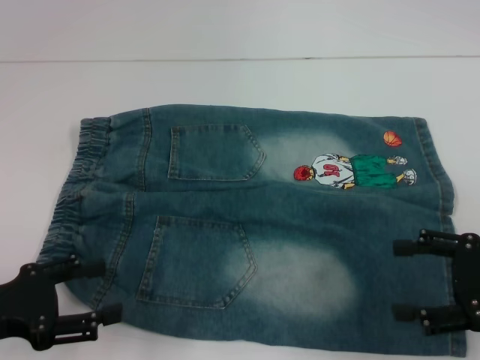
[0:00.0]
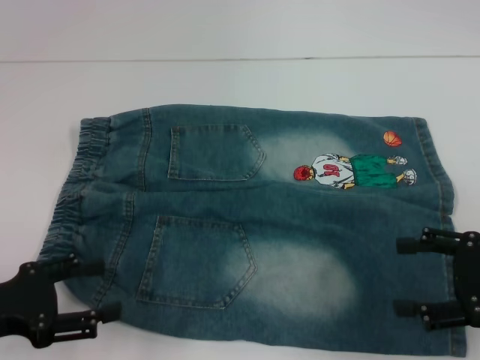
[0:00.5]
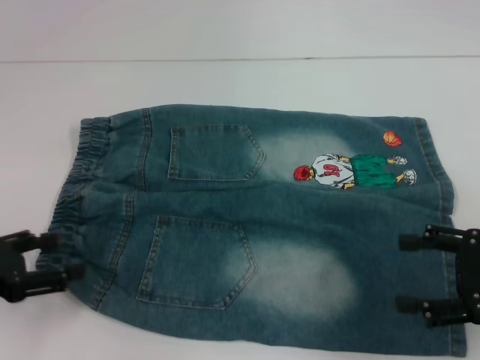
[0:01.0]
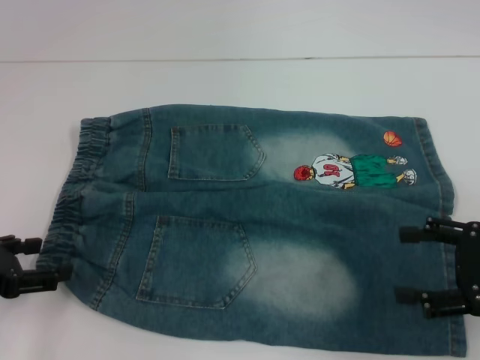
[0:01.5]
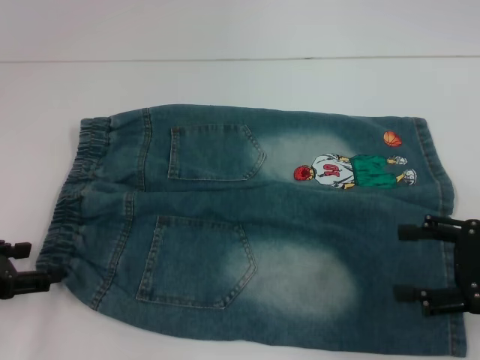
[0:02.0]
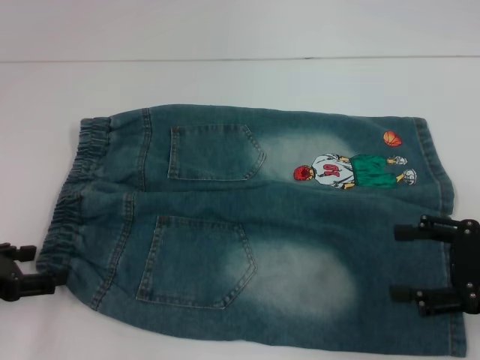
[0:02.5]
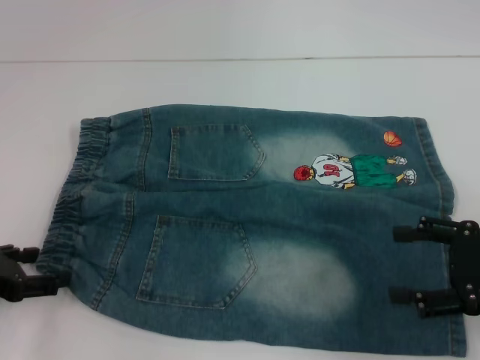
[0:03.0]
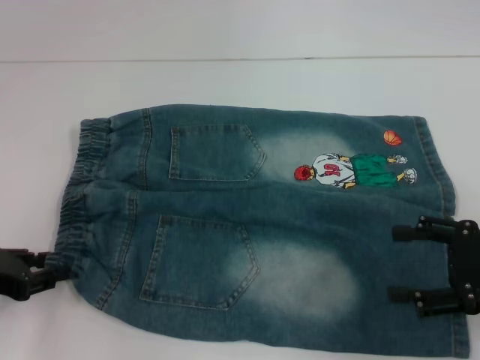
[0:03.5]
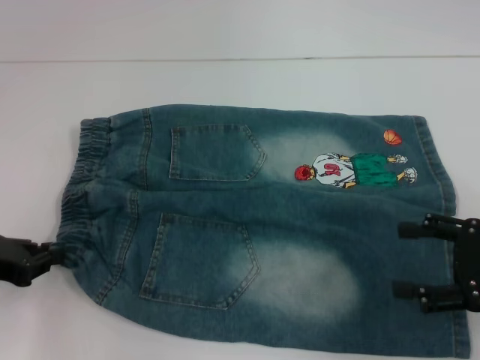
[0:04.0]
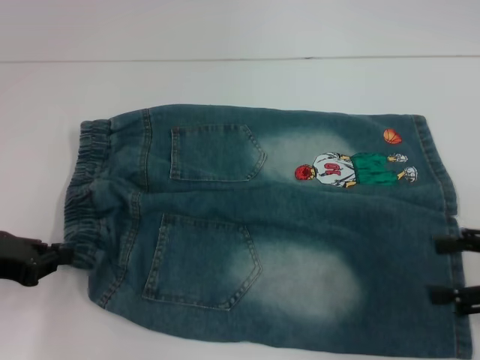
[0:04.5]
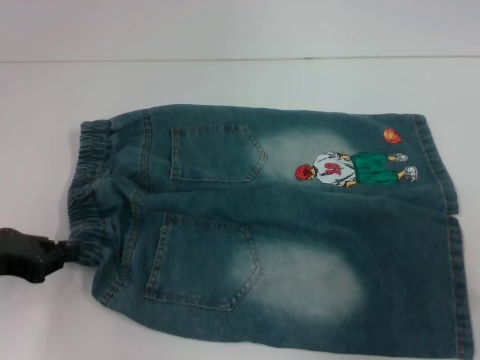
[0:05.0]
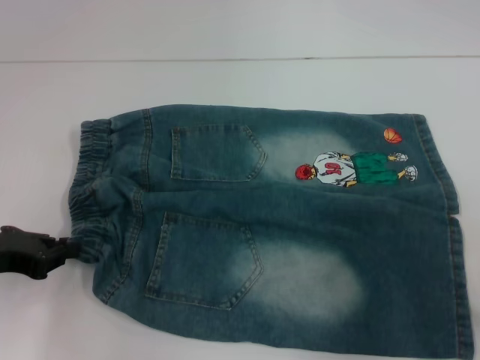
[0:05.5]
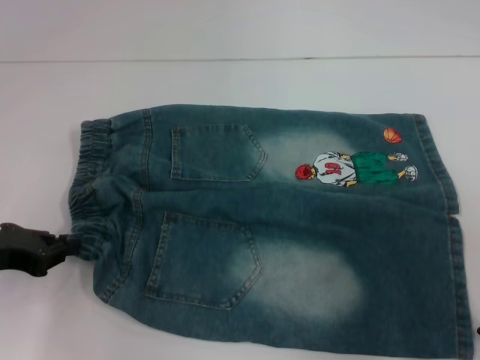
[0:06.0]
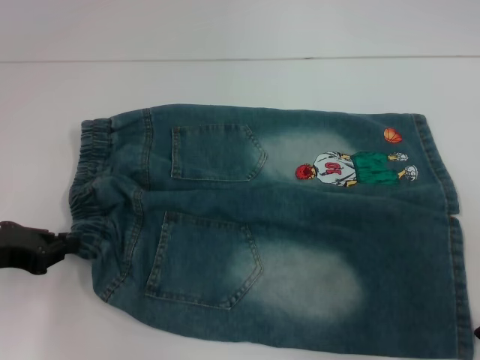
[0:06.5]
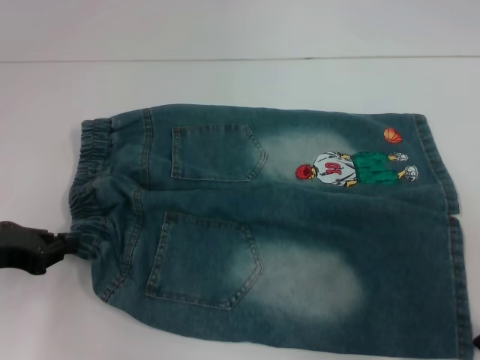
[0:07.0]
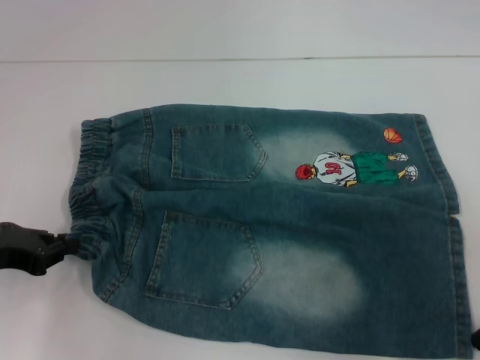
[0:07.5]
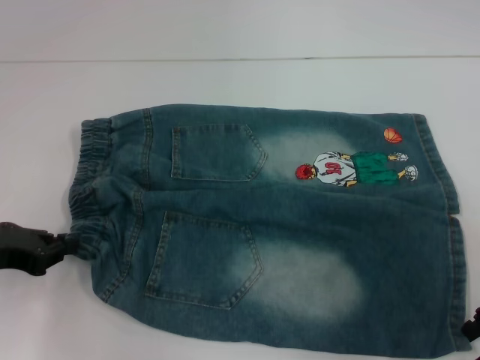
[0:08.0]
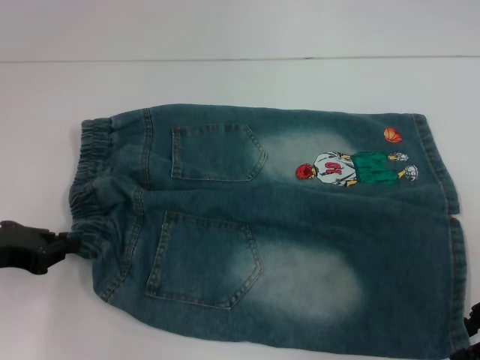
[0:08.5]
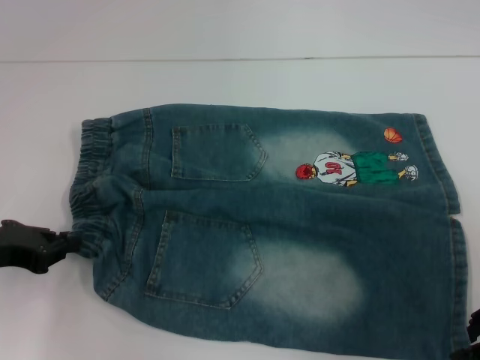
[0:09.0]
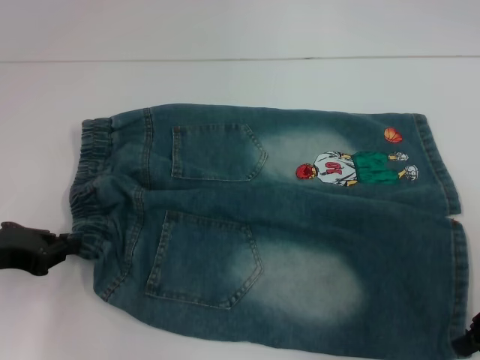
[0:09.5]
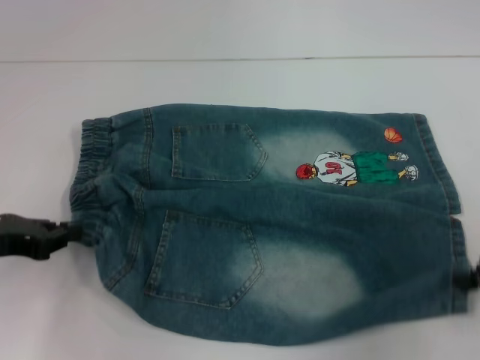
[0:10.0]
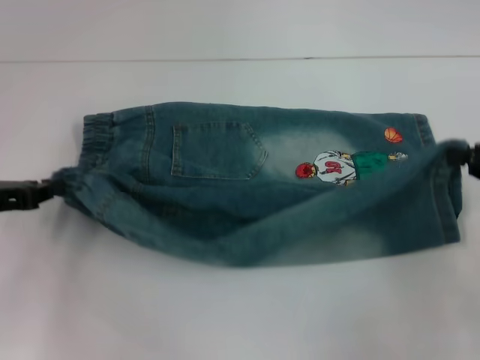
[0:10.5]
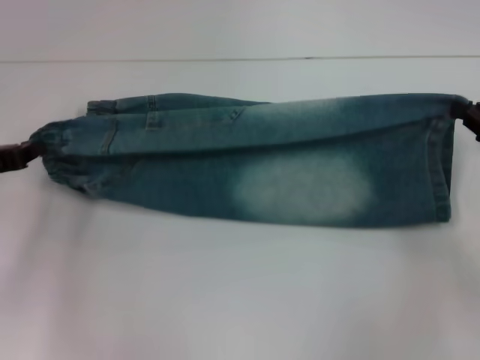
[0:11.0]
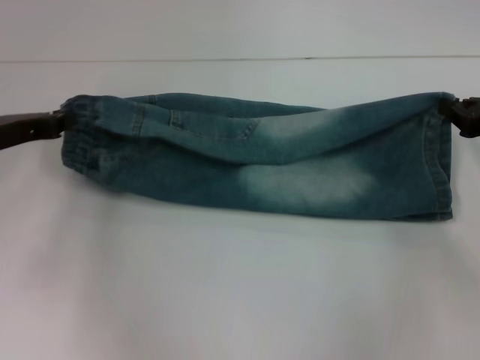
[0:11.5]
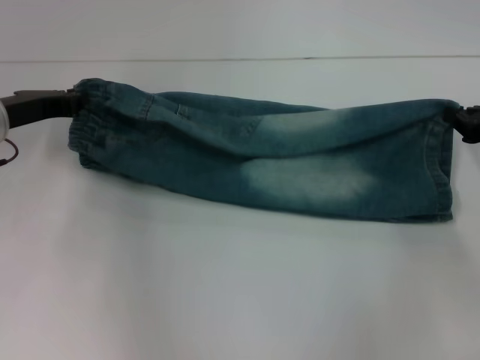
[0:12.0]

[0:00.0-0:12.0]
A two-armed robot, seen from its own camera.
Step, 0:00.0 to 0:04.0: Hold the lower left waistband with your left hand.
Step, 0:04.5 to 0:09.5: Grab the lower right pant leg with your right hand.
0:02.0 to 0:04.0: The left gripper closes up.
0:08.0 to 0:10.0: The right gripper closes.
0:10.0 to 0:12.0: Both grippers move forward, some 10 cm.

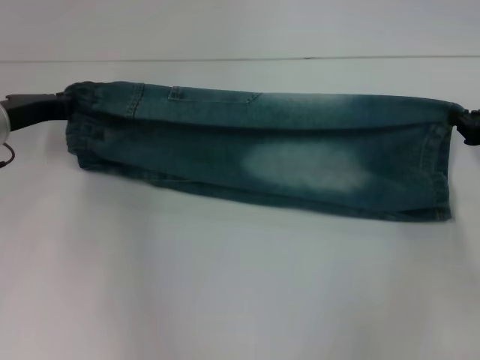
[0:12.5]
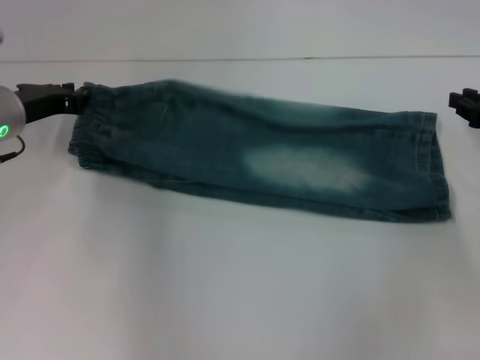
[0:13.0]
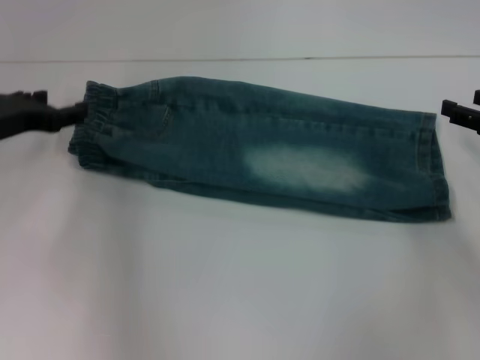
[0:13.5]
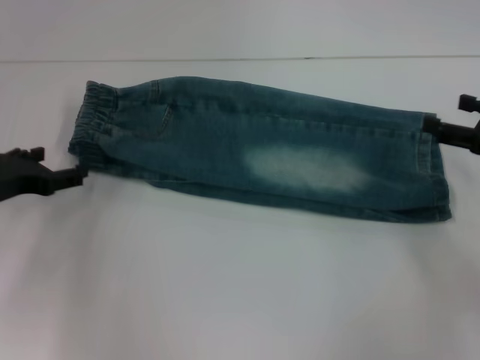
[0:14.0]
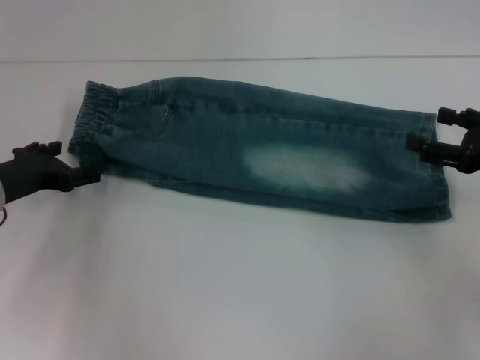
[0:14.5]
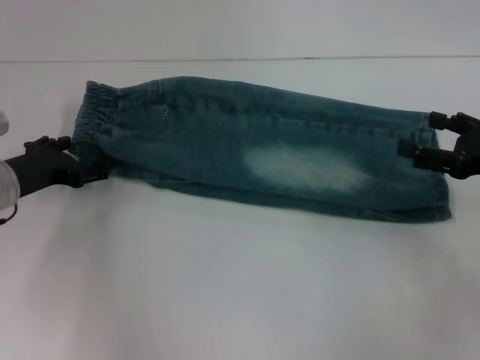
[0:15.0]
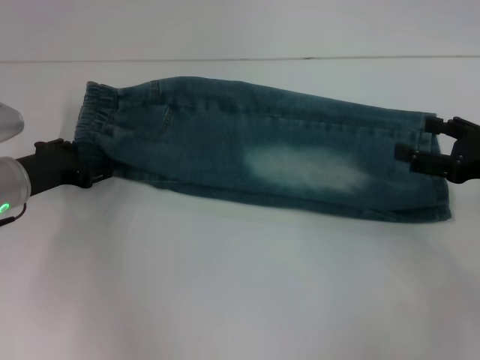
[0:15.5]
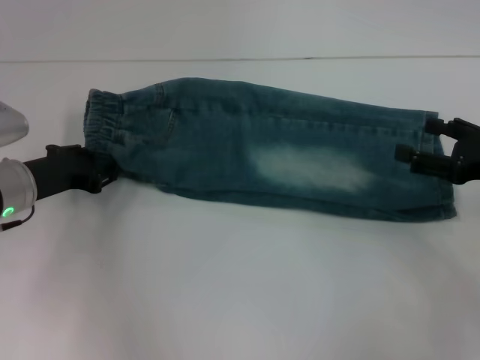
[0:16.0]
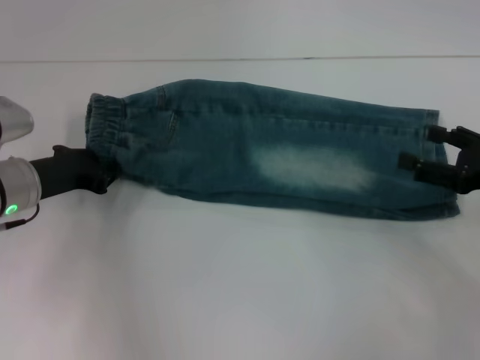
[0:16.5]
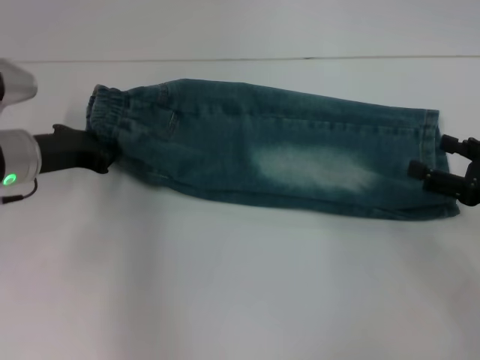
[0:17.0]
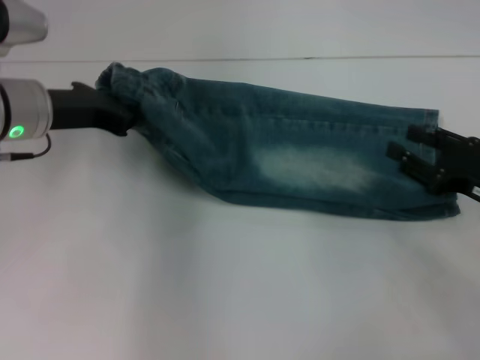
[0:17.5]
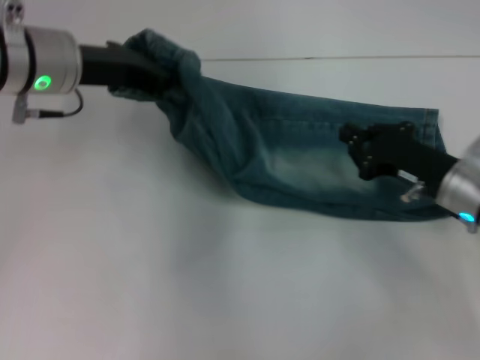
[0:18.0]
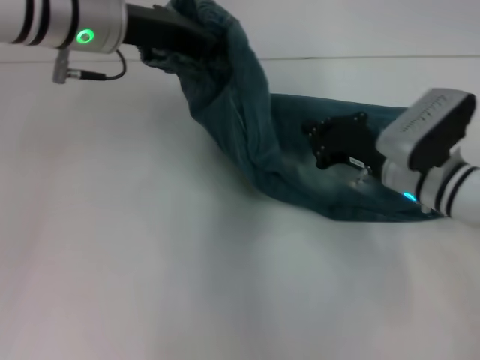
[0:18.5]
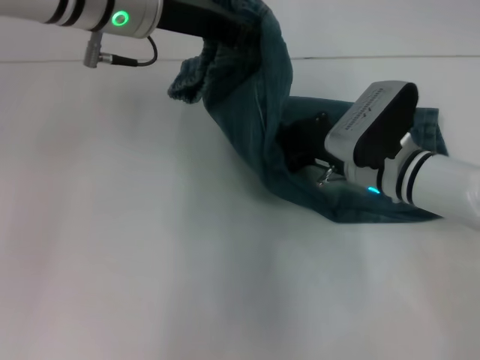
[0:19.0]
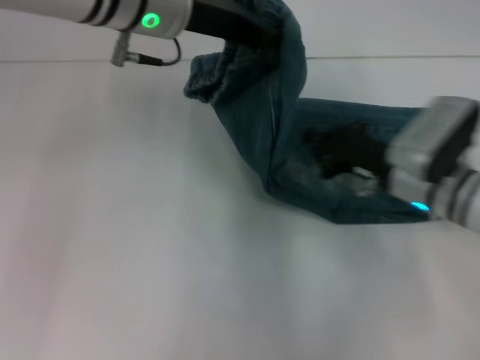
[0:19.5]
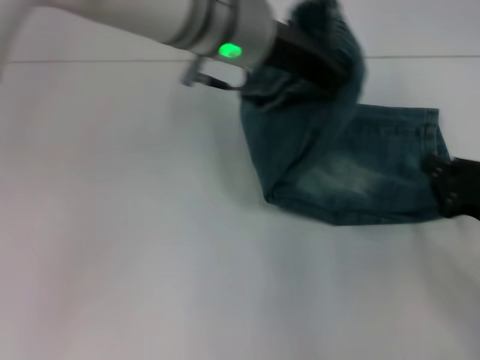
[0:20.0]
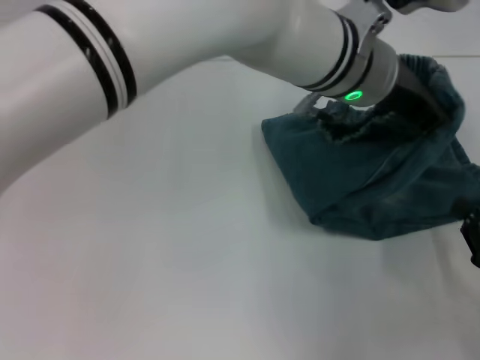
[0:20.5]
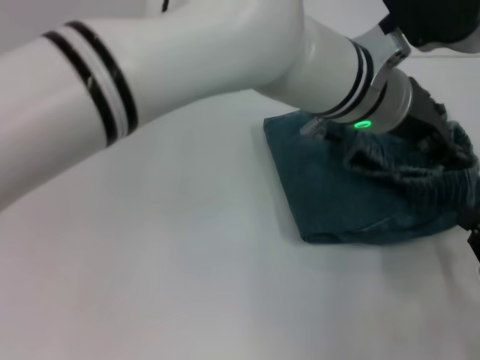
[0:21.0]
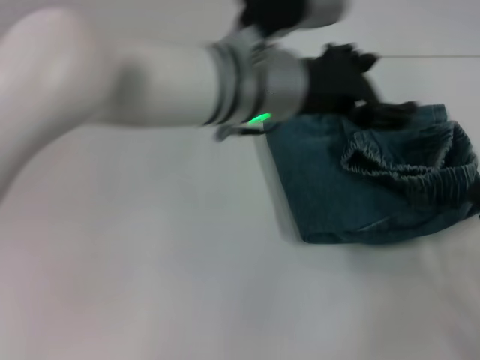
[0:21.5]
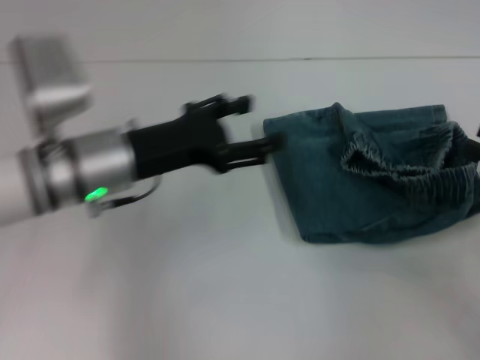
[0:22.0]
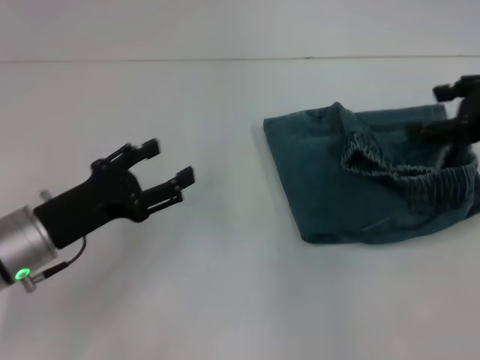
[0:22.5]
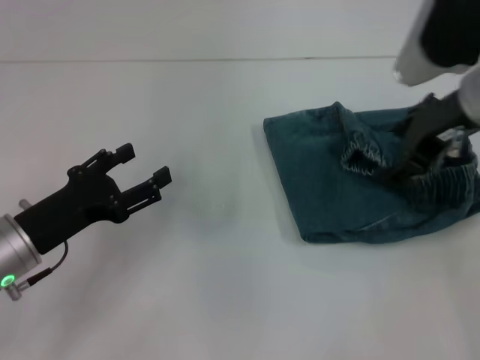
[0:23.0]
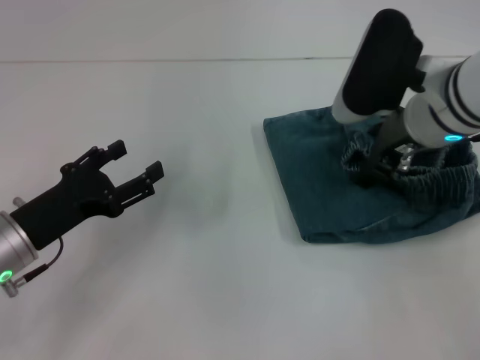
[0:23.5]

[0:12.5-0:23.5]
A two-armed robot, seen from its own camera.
Step, 0:13.5 to 0:16.5: Hold the waistband with your left hand.
Step, 0:17.0 to 0:19.0: Press the middle of the pants with your right hand.
Step, 0:19.5 to 0:21.0: Fold to the right with your left hand.
0:12.5 to 0:14.5: The right gripper opens, while the left gripper goes approximately 5 cm backward, and opens up.
0:14.5 to 0:16.0: The left gripper closes its fingers.
0:16.0 to 0:18.0: The left gripper moves upward and to the right, approximately 15 cm, and closes; the right gripper shifts about 10 cm to the left and downward, and closes its fingers.
0:18.0 to 0:20.0: The left gripper is displaced to the right by about 15 cm. The right gripper moves to the right and backward, some 10 cm.
0:20.0 to 0:21.5: The right gripper travels backward by some 5 cm, while the left gripper goes to the right and returns, approximately 10 cm each way, and opens up.
0:21.5 to 0:23.5: The right gripper travels to the left, forward and upward by about 25 cm, and opens, while the left gripper heads to the left and downward, covering roughly 30 cm.

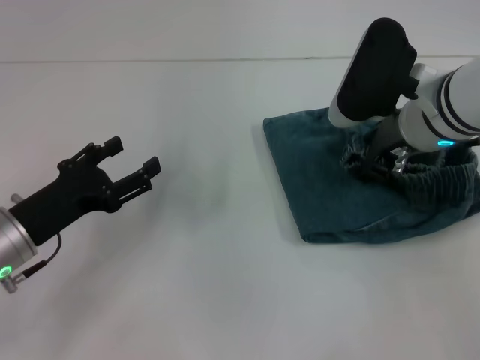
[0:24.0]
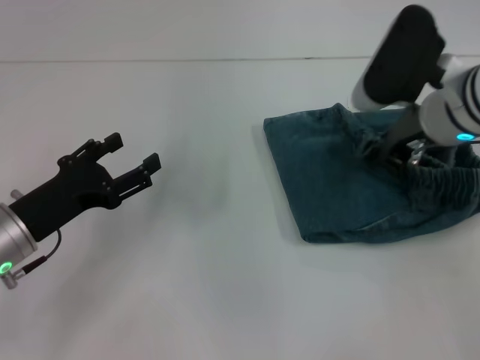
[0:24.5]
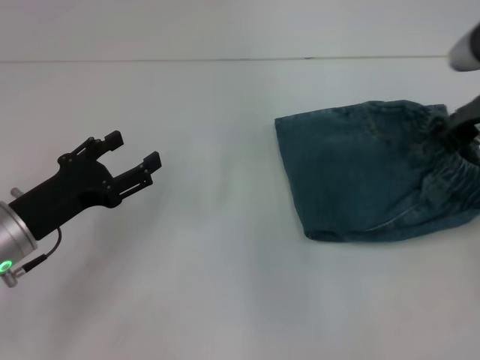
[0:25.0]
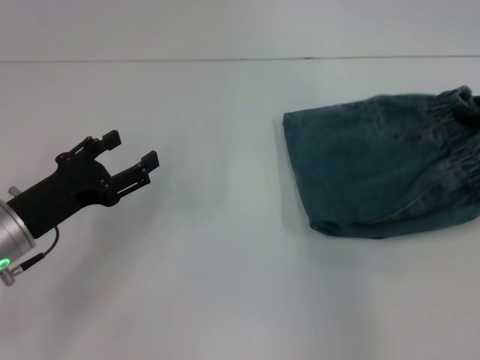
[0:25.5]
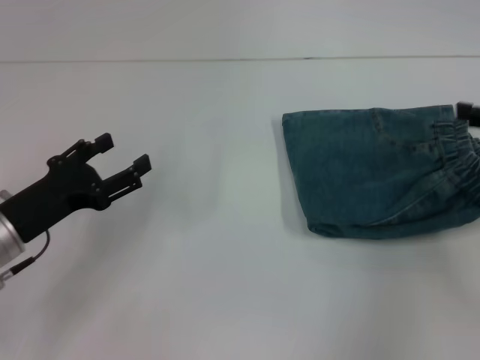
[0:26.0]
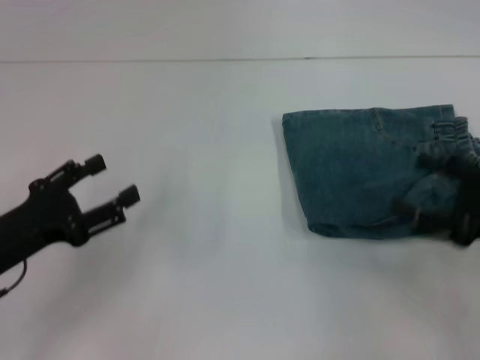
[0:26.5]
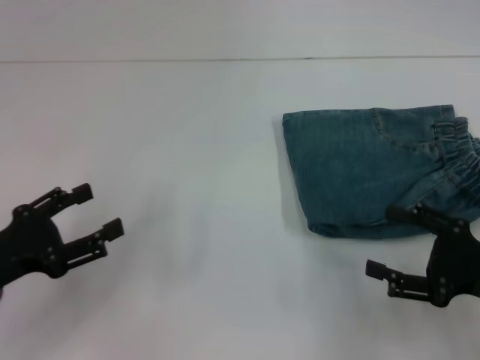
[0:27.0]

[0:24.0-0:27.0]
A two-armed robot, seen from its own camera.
0:24.0 to 0:25.5: The right gripper heads to the right, covering roughly 15 cm, and closes.
0:25.5 to 0:27.0: The left gripper heads backward, covering about 5 cm. Meanwhile the right gripper moves backward and downward, roughly 20 cm, and opens its fingers.
